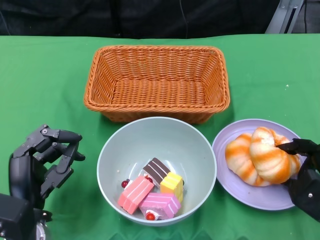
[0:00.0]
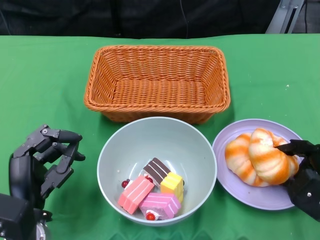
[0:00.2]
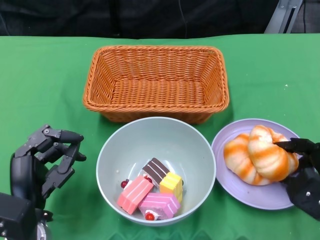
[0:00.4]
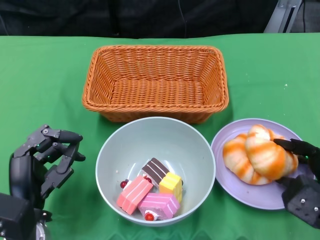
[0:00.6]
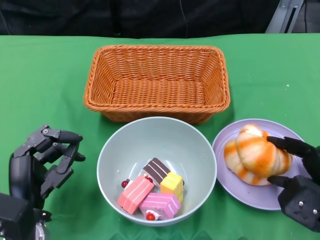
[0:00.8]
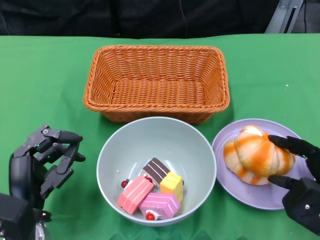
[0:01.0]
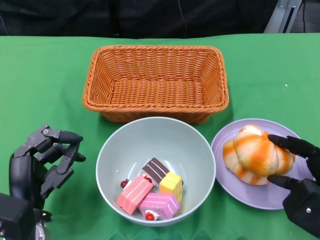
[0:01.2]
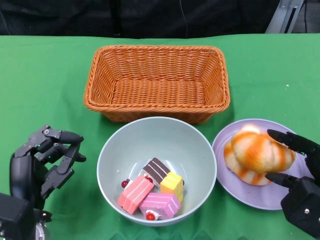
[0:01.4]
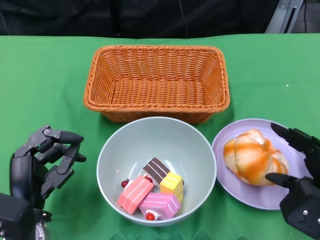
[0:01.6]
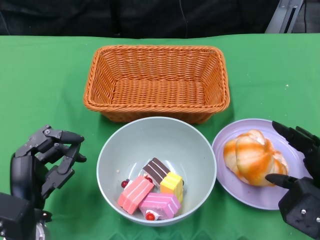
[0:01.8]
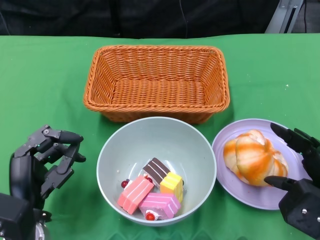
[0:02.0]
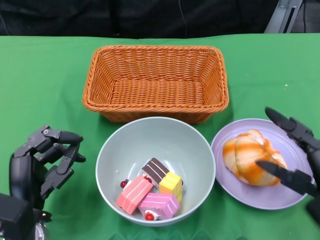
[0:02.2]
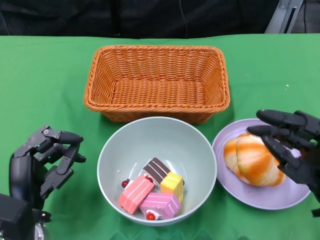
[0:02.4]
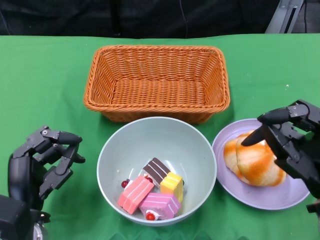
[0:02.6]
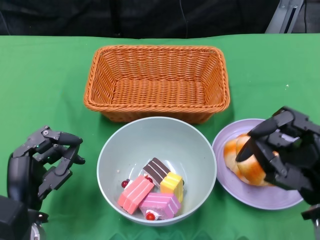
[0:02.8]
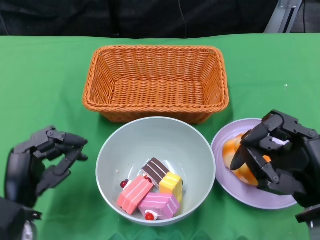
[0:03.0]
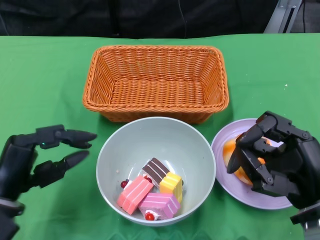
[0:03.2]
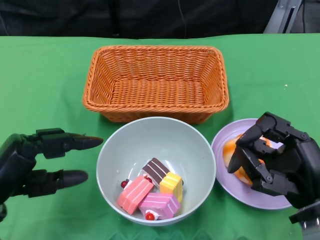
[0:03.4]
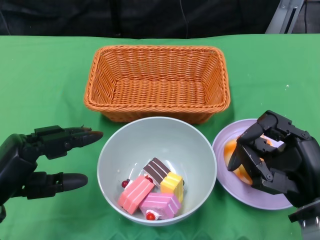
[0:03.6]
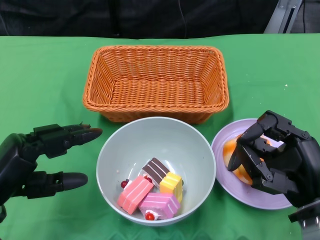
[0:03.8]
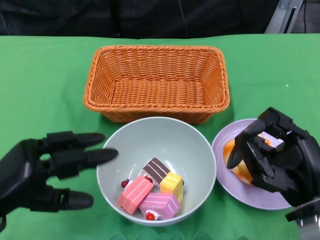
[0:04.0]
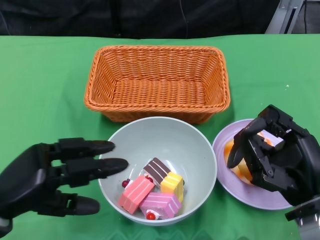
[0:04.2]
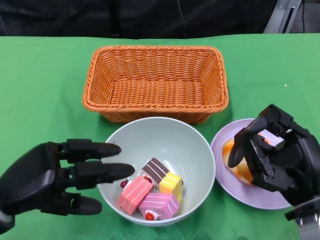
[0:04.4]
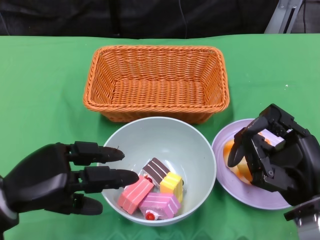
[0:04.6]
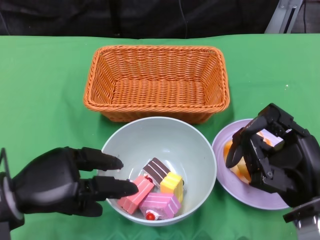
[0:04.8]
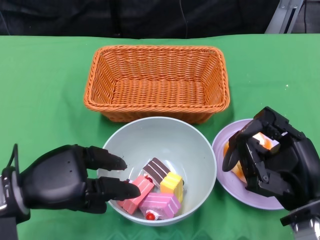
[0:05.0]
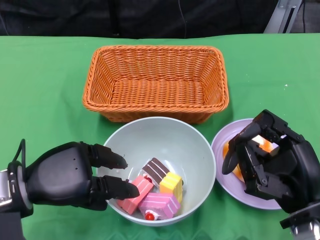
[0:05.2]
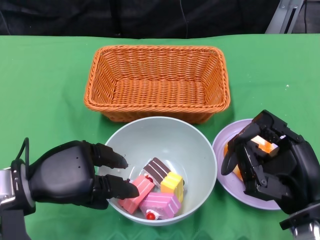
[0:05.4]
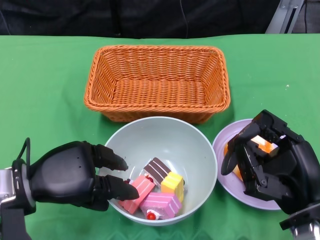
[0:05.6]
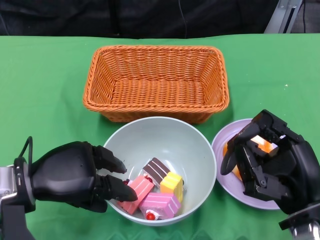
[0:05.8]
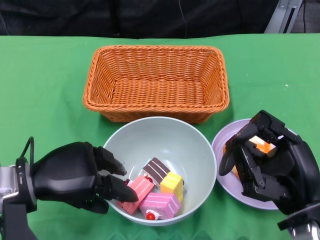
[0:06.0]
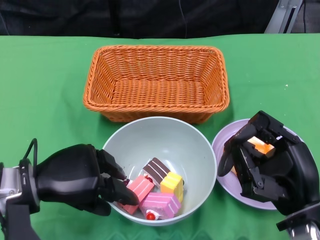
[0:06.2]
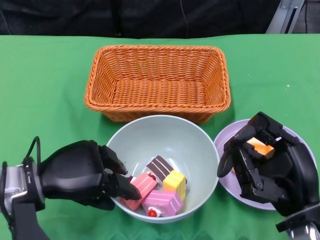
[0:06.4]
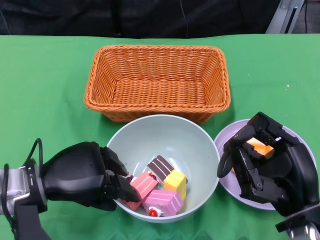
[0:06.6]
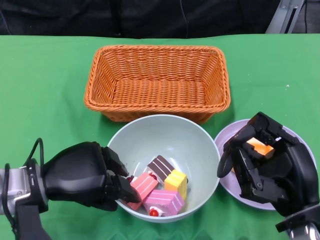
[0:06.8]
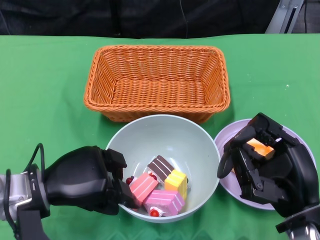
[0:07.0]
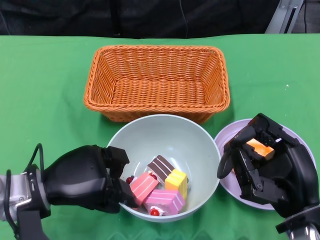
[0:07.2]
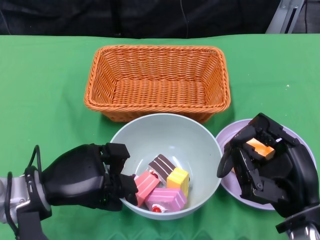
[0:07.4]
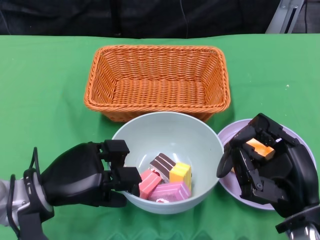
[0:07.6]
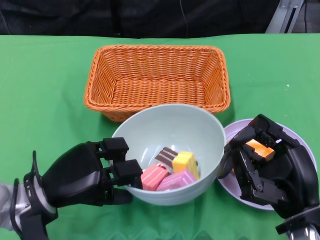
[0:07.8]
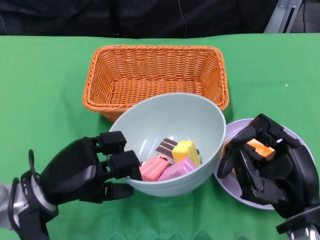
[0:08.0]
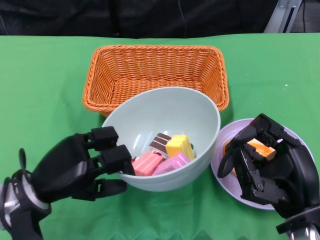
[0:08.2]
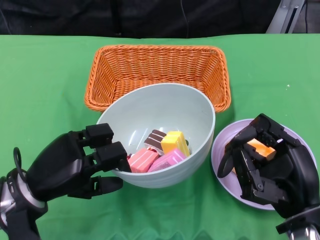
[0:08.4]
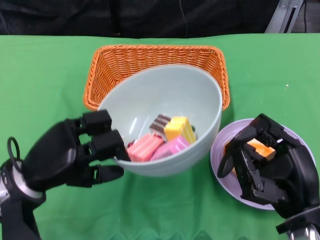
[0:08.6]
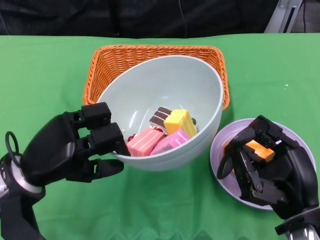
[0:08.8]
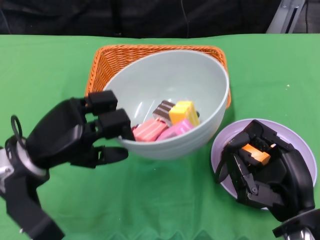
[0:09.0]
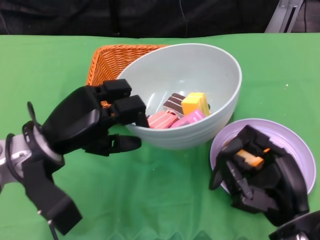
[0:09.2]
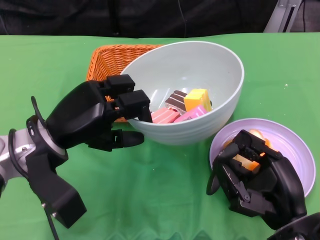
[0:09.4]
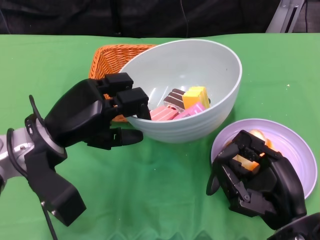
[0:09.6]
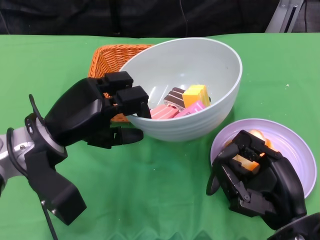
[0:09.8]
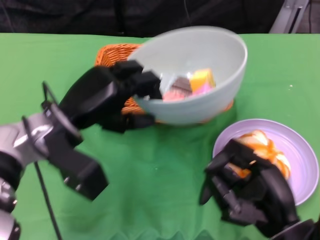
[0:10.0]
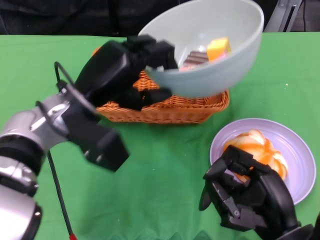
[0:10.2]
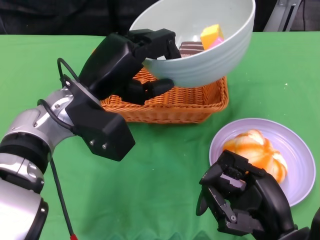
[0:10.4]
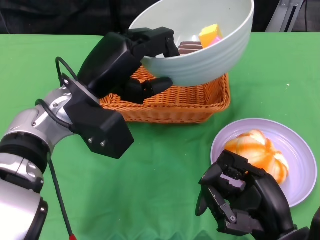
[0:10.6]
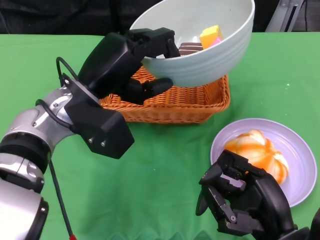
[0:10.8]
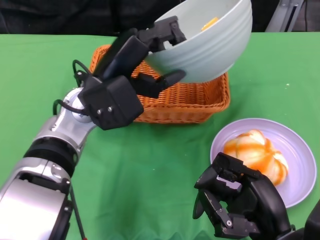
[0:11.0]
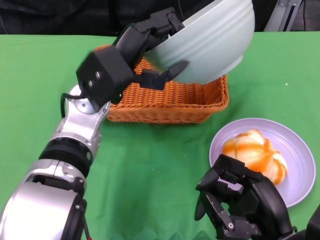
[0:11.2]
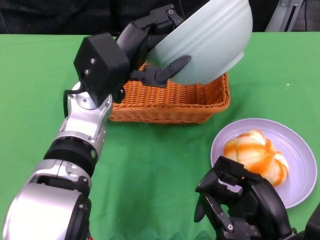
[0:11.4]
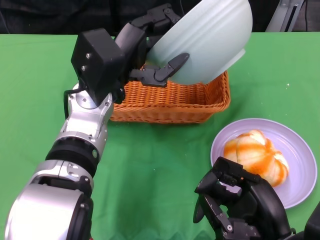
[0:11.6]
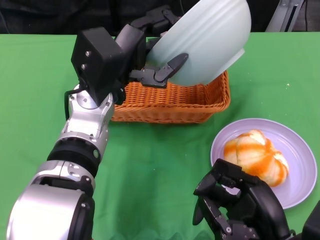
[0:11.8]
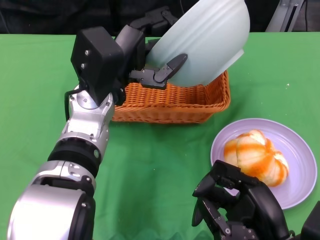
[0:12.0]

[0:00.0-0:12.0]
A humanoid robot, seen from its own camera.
Step, 0:00.0 to 0:03.0: Pick up the bread with the right gripper and place it on the plate.
Step, 0:03.4 to 0:07.4: Grasp the bowl with the left gripper.
0:00.0 to 0:01.6: The right hand changes place by approximately 5 cm.
0:03.0 to 0:04.4: The left hand heads upward, covering about 5 cm.
0:04.4 to 0:06.0: The left hand changes place by roughly 5 cm.
0:06.0 to 0:07.6: The hands move only a little.
0:09.0 to 0:10.4: The left hand goes some 10 cm to the right, upward and forward.

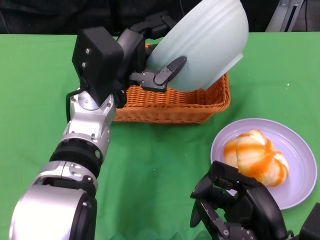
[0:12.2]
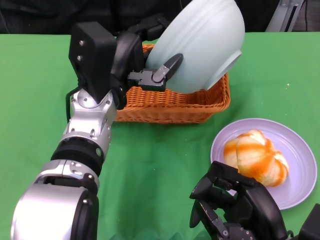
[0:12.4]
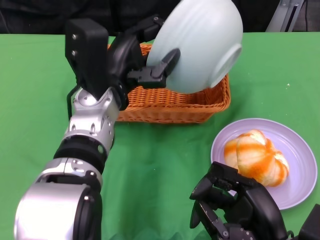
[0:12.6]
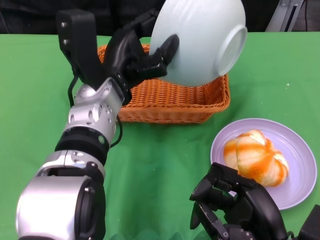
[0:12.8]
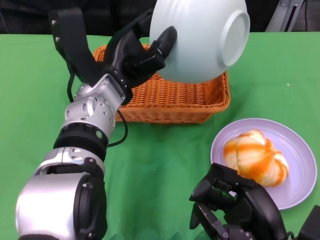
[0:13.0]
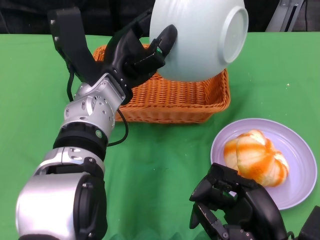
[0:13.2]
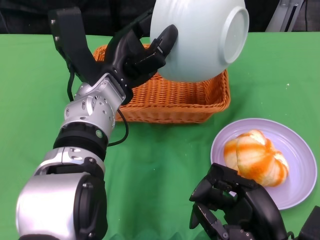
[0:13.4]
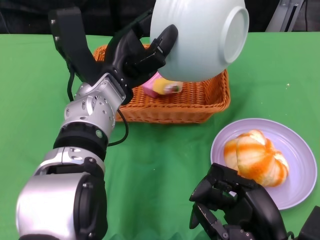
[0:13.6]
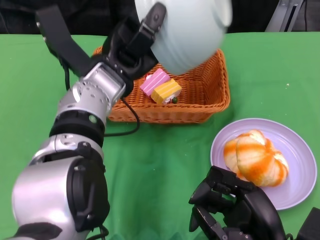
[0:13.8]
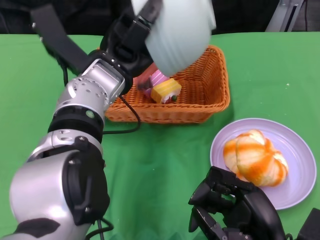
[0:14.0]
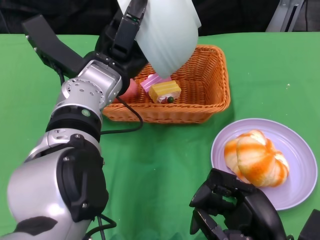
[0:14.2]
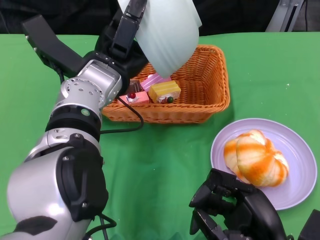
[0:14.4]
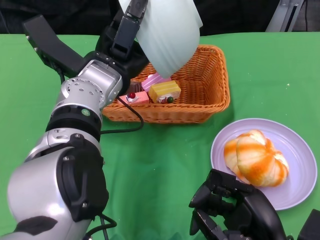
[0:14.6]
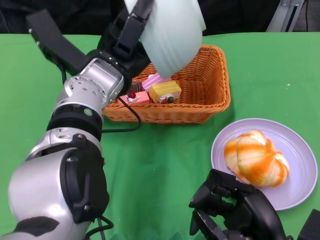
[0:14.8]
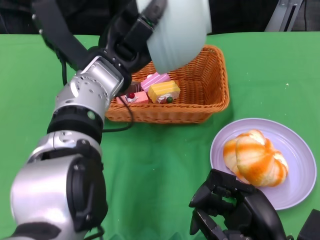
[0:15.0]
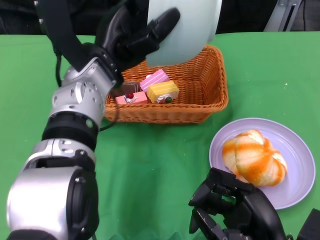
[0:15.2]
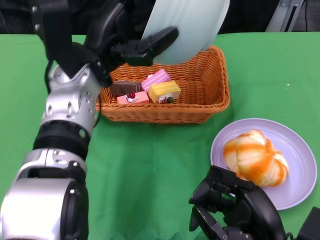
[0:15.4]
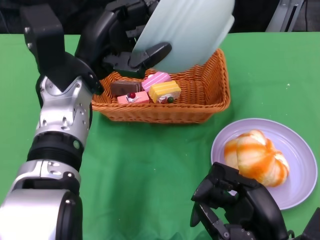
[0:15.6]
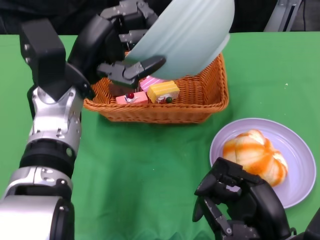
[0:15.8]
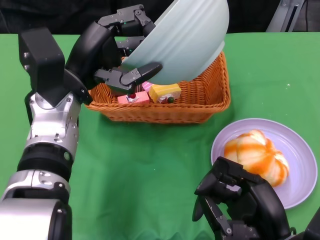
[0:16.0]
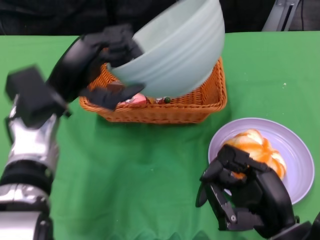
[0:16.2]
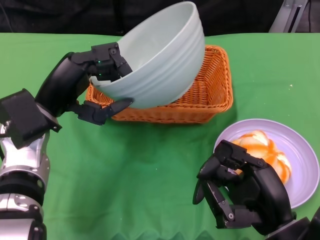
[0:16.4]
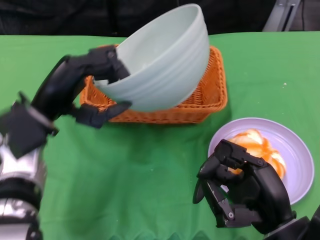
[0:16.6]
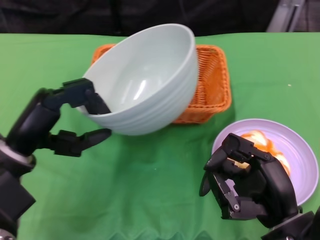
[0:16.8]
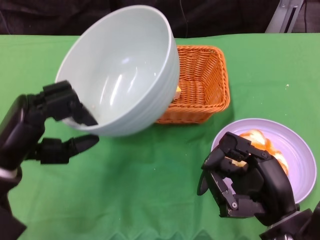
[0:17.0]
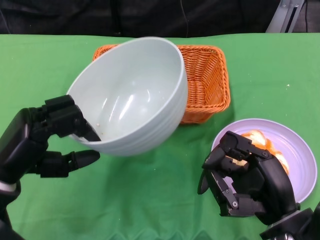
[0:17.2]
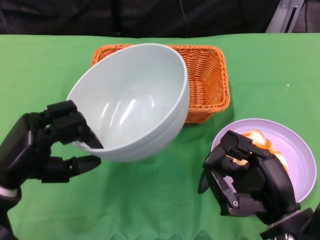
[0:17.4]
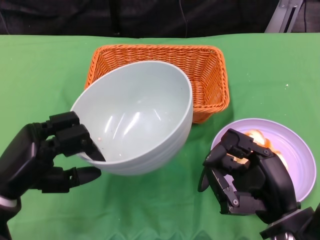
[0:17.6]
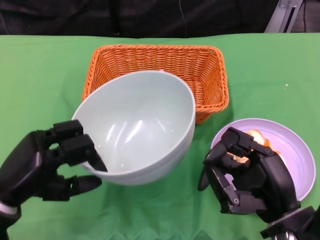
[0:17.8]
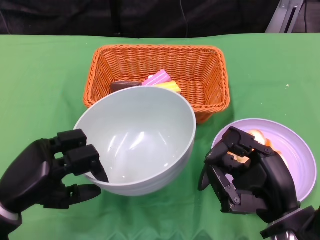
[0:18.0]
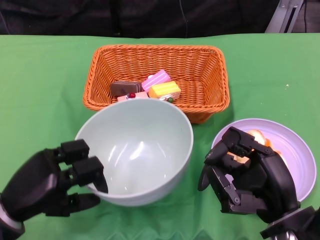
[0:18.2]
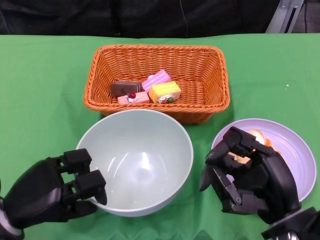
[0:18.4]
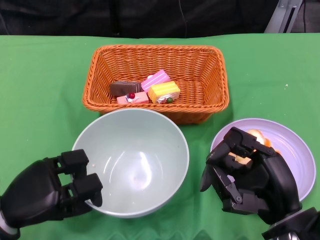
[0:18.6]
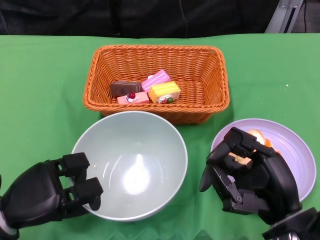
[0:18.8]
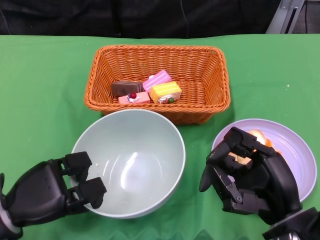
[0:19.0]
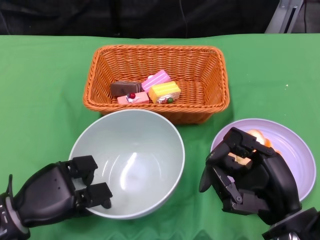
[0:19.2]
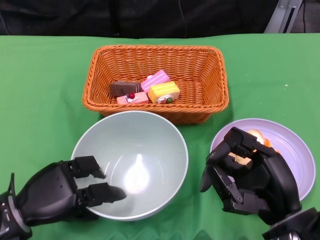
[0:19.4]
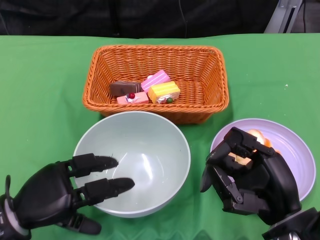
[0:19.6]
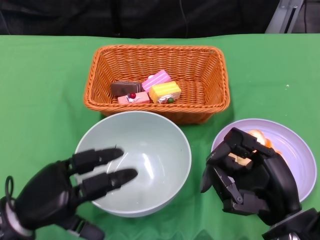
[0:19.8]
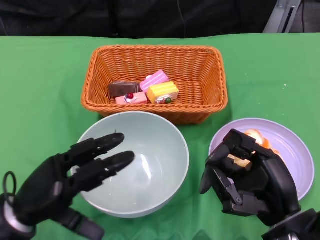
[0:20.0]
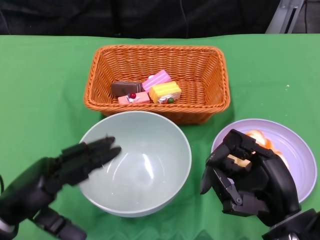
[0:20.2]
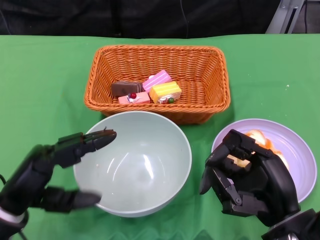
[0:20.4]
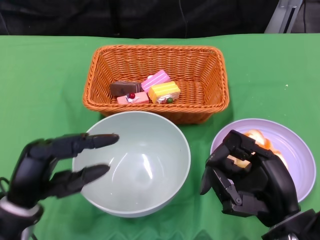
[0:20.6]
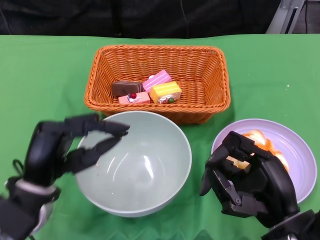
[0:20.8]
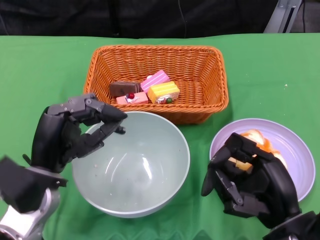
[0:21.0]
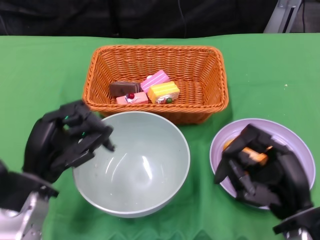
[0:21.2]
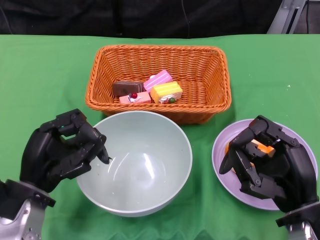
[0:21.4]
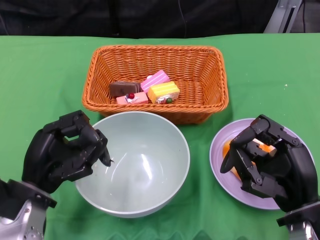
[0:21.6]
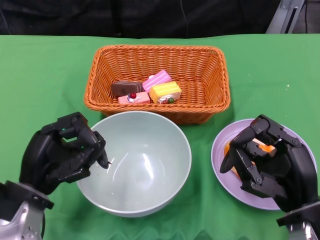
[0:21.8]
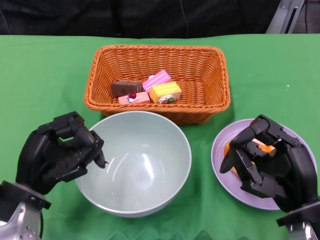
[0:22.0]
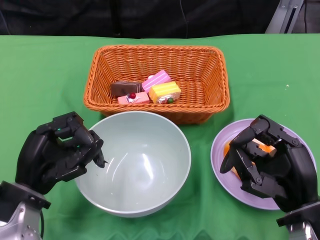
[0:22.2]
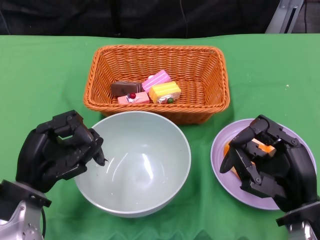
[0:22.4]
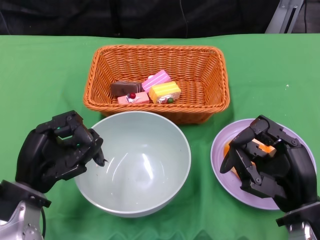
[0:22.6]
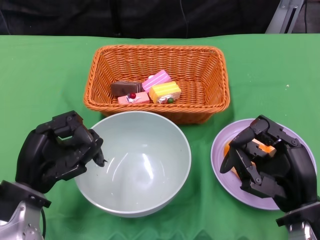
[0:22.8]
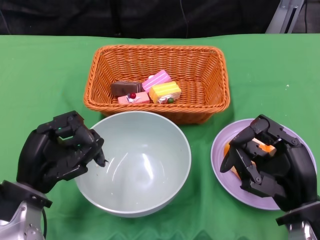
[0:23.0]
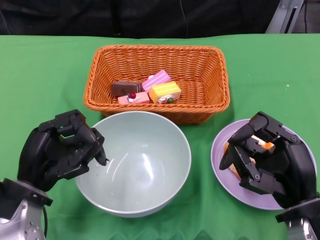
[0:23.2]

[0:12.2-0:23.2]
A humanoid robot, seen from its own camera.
Step, 0:12.2 to 0:15.4: Pour the cake into the basket with the left gripper.
Step, 0:15.6 to 0:20.2: Place the bowl on the table with the left gripper.
0:15.4 to 0:17.0: The left hand goes roughly 15 cm to the left, backward and downward.
0:17.0 to 0:18.4: The left hand shifts approximately 5 cm downward.
0:18.4 to 0:20.0: The hands move only a little.
0:21.6 to 0:23.2: Both hands stay put.
